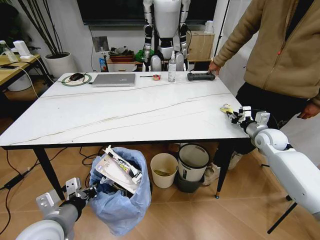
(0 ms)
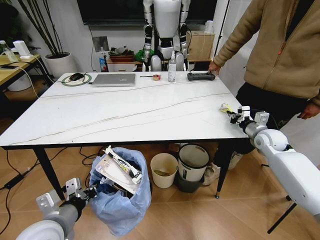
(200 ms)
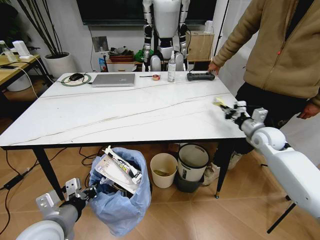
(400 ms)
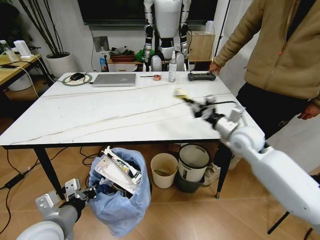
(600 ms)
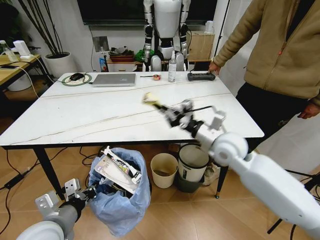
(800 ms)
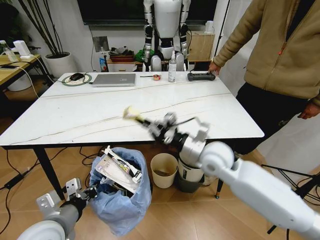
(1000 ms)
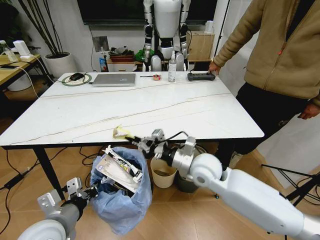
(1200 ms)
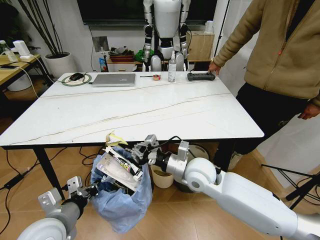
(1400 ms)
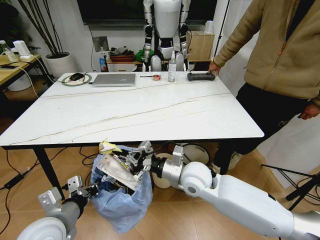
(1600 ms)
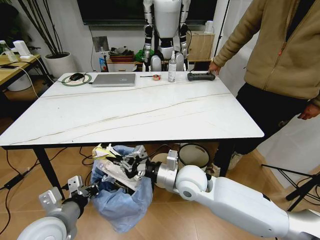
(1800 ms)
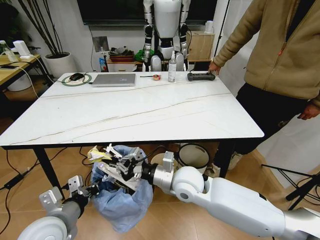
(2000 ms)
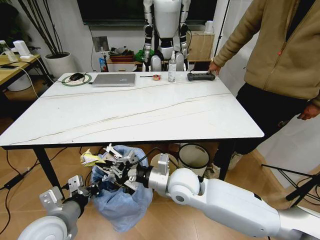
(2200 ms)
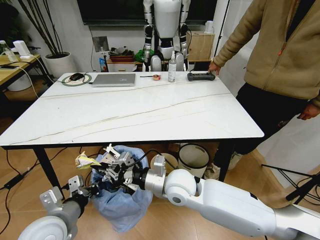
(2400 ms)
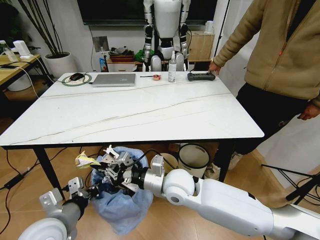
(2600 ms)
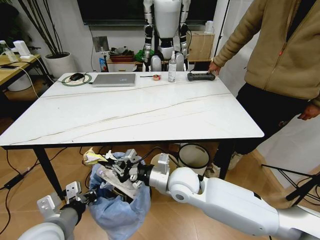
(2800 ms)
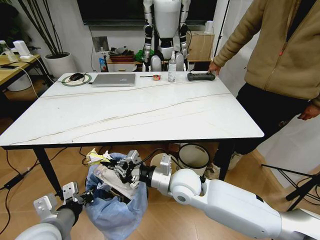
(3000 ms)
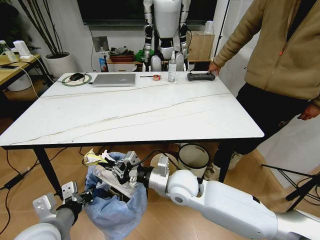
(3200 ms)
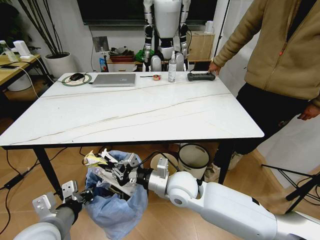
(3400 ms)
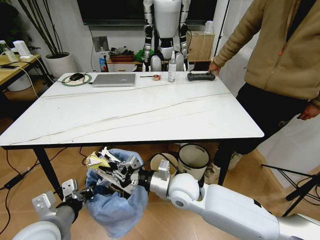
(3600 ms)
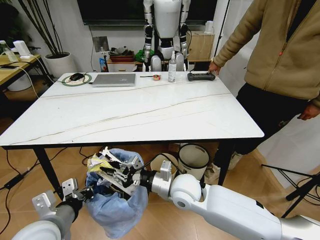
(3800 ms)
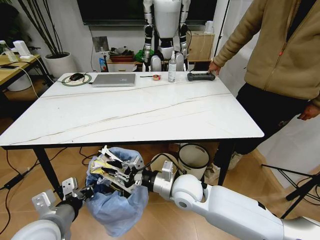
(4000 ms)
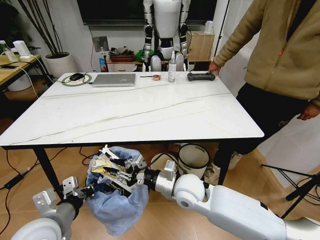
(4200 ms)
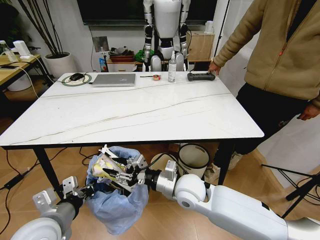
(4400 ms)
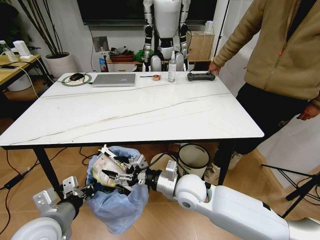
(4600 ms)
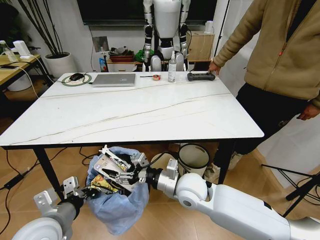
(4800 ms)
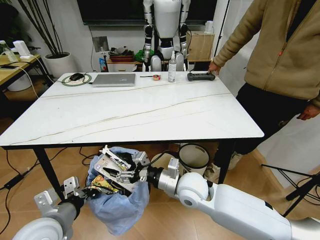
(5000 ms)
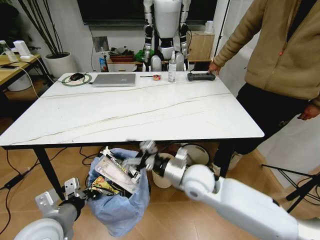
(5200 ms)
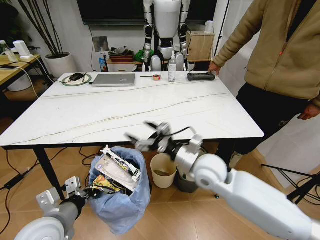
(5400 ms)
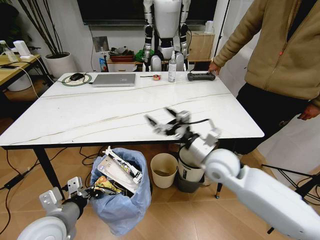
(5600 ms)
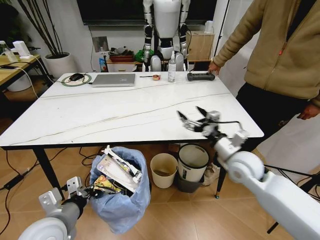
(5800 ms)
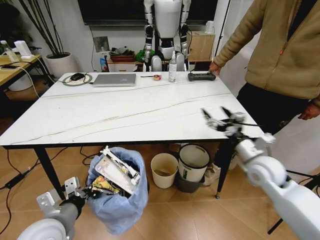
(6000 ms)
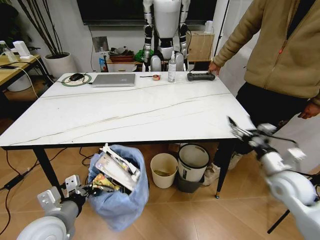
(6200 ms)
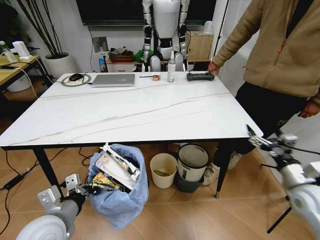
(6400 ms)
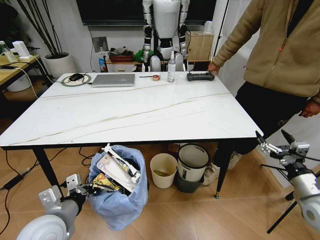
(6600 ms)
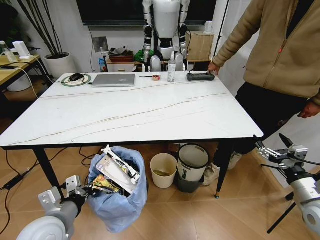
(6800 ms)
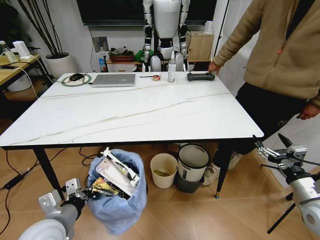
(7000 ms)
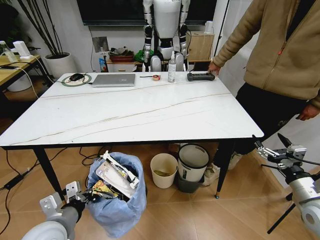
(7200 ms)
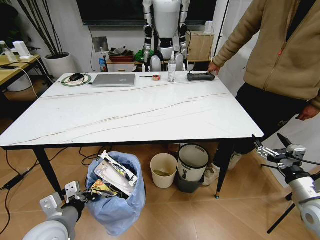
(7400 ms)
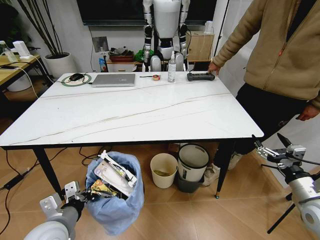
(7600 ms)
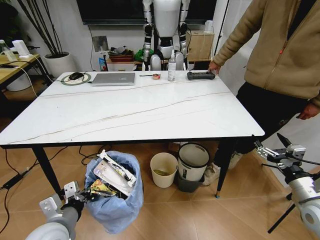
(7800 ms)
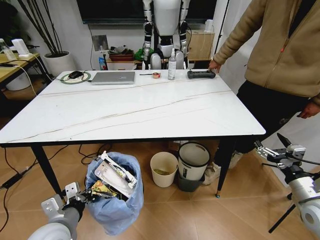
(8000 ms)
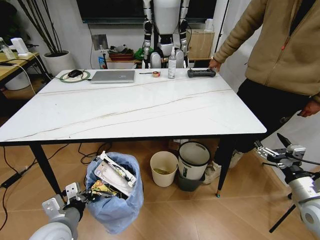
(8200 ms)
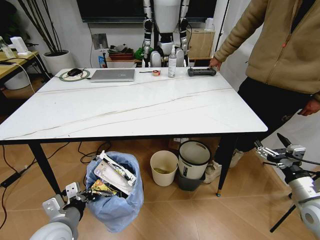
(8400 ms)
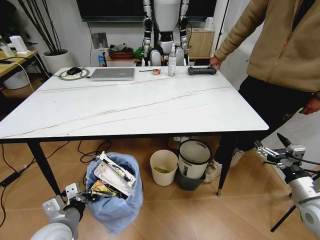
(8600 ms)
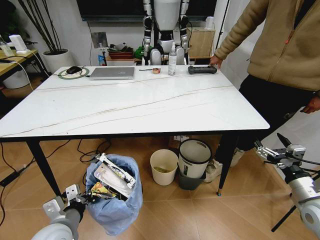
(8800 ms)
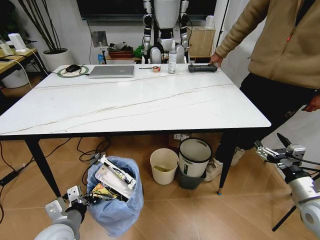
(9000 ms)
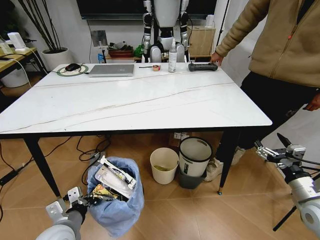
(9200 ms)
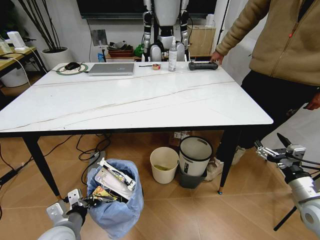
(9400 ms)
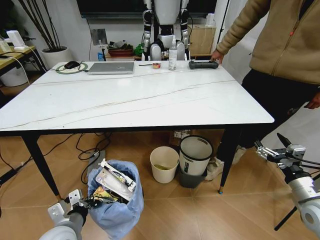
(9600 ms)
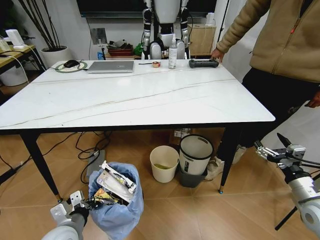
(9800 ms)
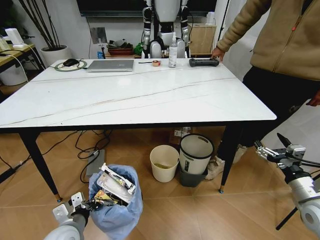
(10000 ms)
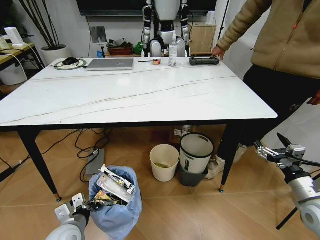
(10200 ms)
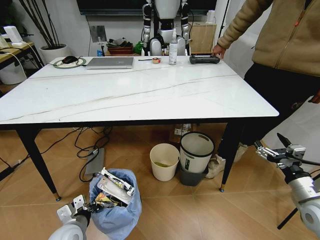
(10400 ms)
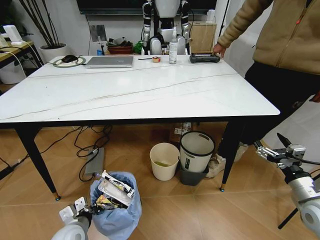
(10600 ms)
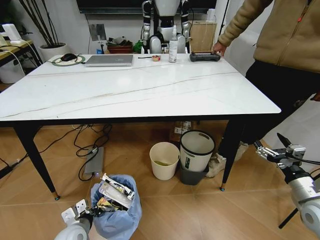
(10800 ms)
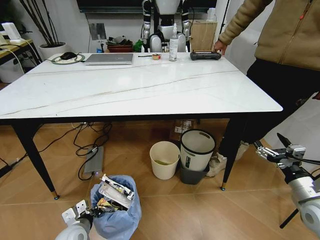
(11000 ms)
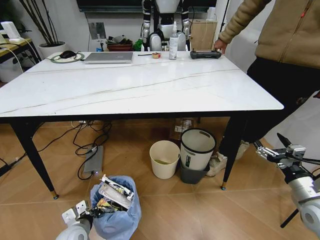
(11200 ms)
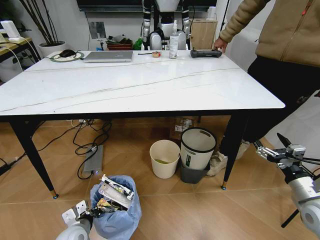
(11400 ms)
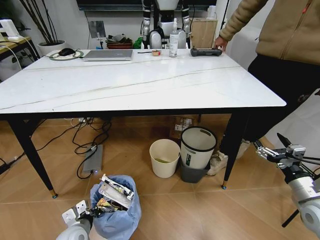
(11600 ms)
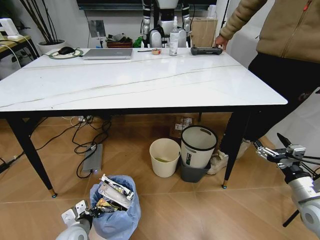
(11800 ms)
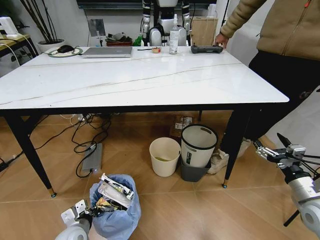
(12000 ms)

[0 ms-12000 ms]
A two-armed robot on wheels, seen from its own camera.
Task of the whole recording: Pick up the trash bin and place the trash from the table into it.
0 ms to 1600 ms: The right gripper goes about 35 cm to the left and backward.
1600 ms to 3000 ms: The grippers make only small movements.
3000 ms to 4400 ms: The right gripper opens.
4400 ms to 6000 ms: The right gripper travels to the right by roughly 25 cm, and opens.
6000 ms to 7600 ms: The right gripper heads backward and to the right, covering some 15 cm.
9000 ms to 10400 ms: The left gripper goes approximately 10 cm downward.

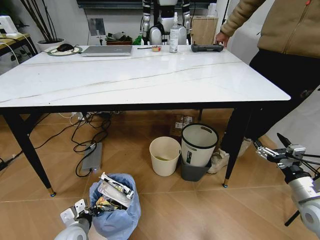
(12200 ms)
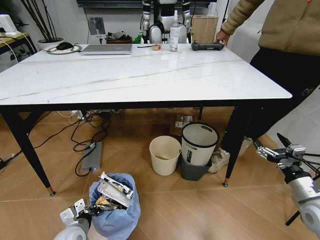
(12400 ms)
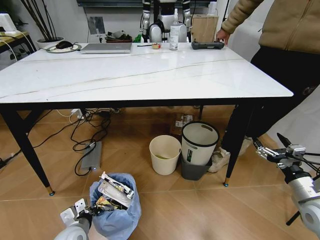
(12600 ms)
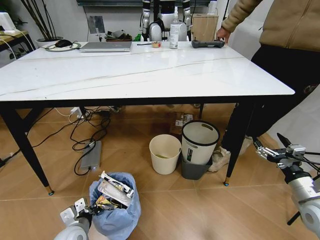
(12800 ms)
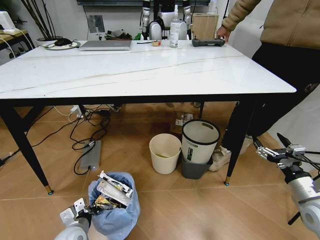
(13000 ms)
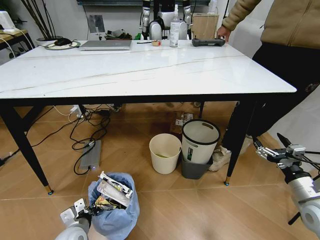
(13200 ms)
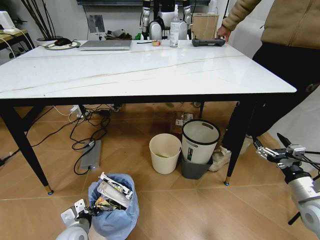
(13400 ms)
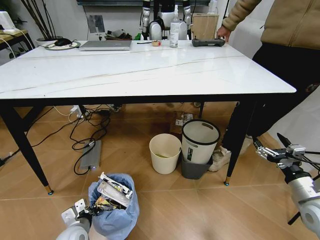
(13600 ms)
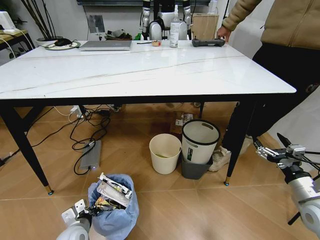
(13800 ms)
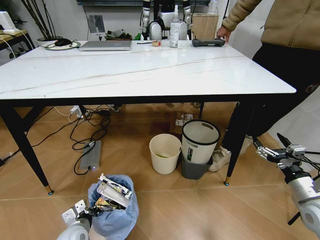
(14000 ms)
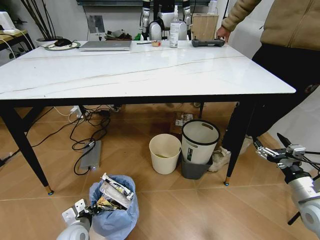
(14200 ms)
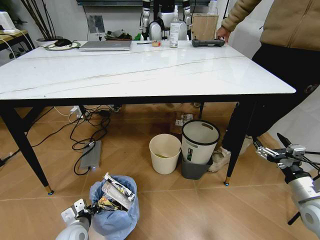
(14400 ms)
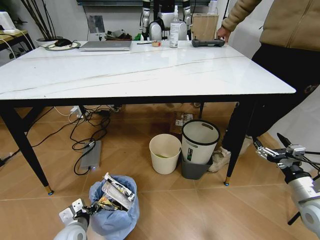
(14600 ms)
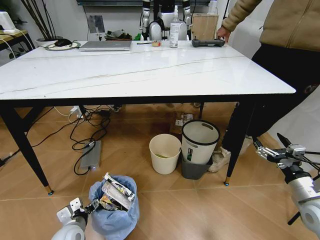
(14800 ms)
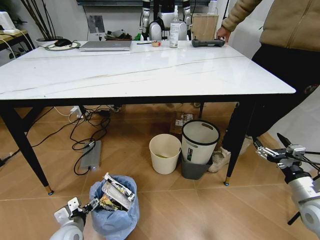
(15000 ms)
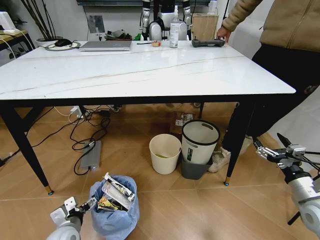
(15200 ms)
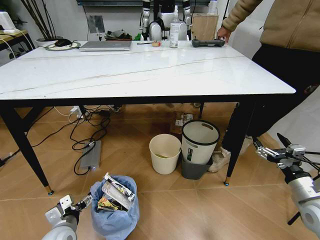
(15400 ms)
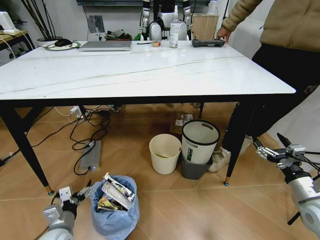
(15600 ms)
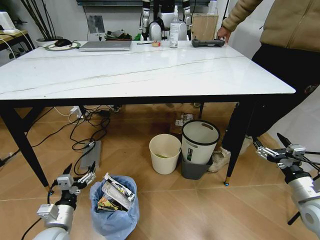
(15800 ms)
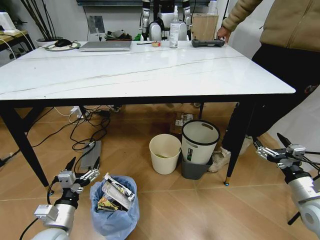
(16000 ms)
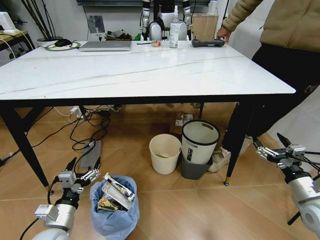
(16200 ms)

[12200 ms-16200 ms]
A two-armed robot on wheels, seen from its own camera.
Task of the whole recording: Pick up the trash bin and place the trash from the table into it.
13600 ms to 14800 ms: The left gripper opens.
14800 ms to 16200 ms: The left gripper heads upward, covering roughly 10 cm.
